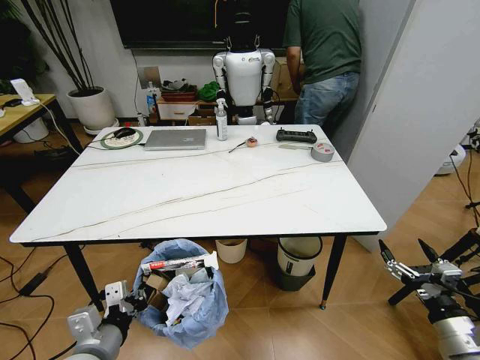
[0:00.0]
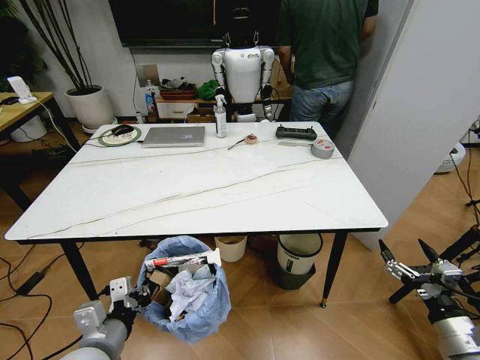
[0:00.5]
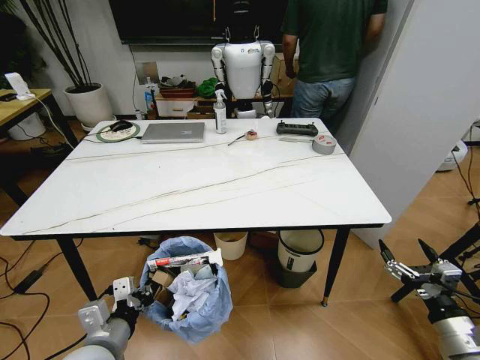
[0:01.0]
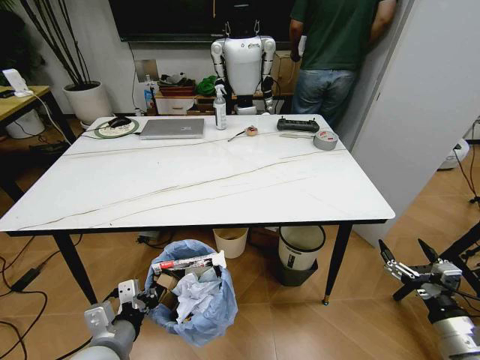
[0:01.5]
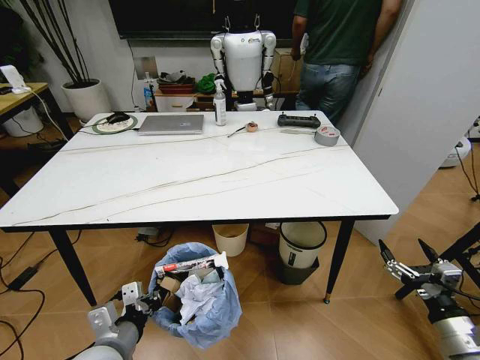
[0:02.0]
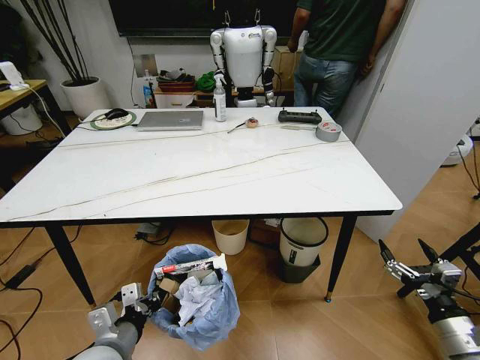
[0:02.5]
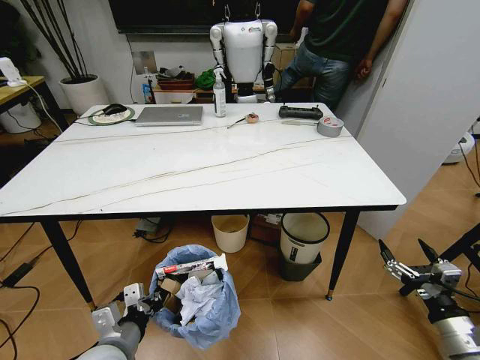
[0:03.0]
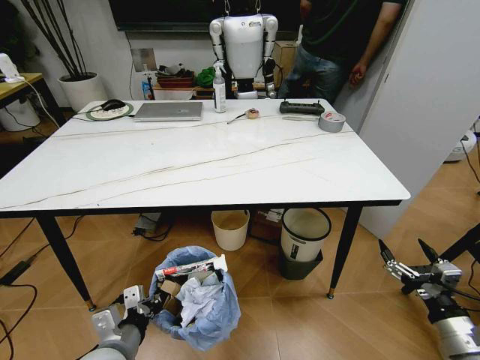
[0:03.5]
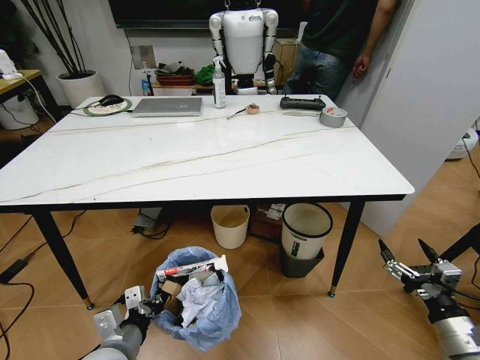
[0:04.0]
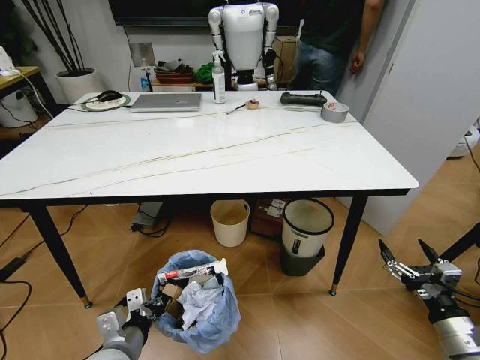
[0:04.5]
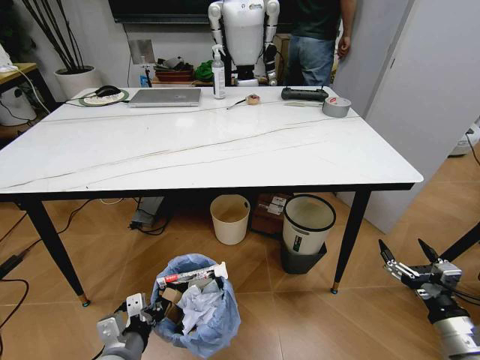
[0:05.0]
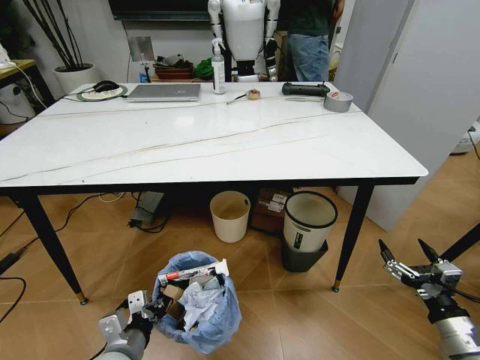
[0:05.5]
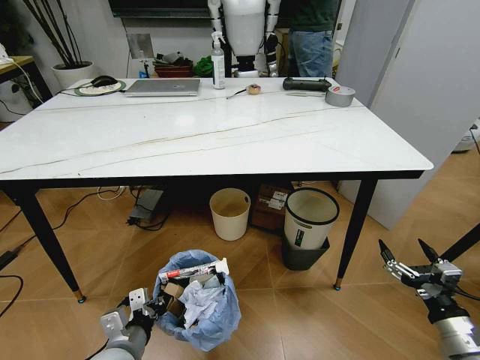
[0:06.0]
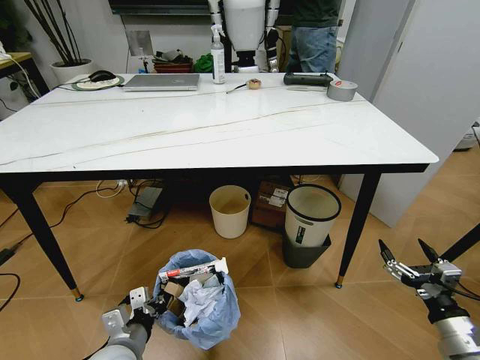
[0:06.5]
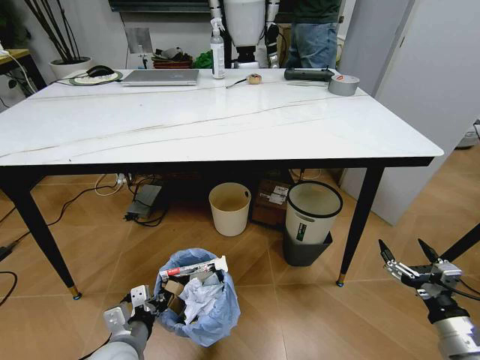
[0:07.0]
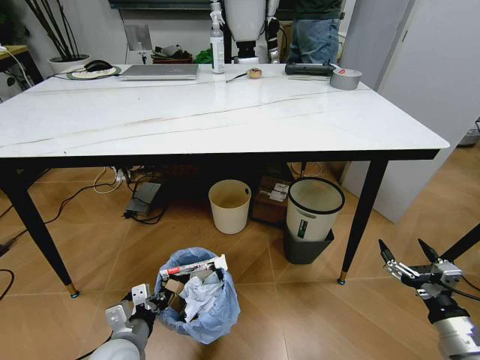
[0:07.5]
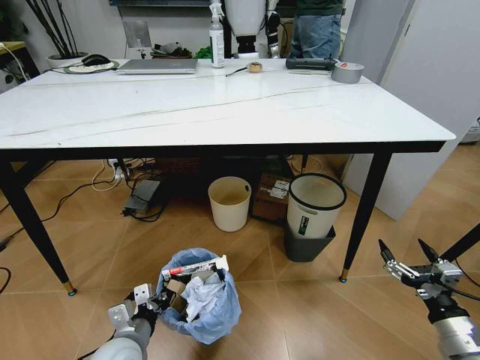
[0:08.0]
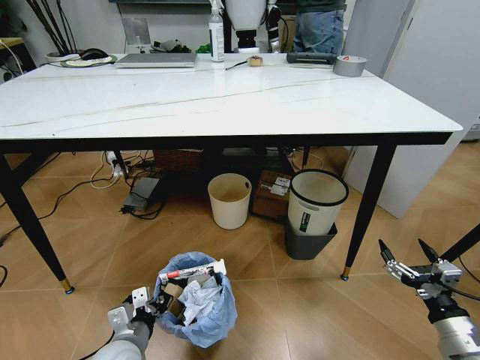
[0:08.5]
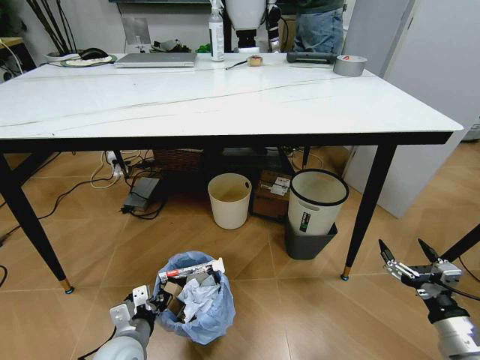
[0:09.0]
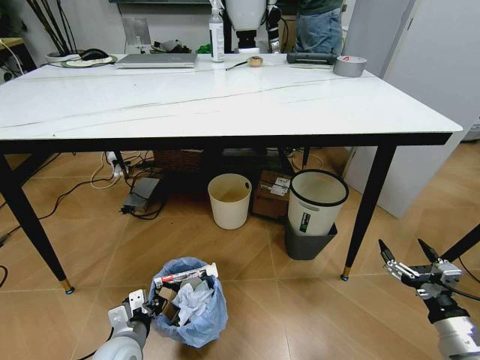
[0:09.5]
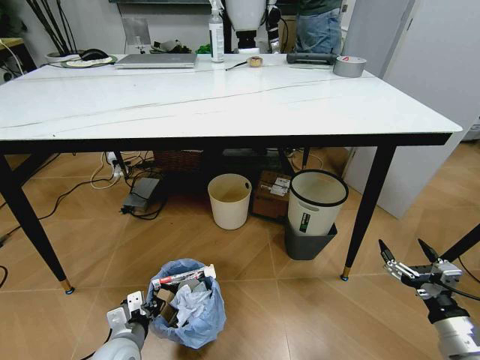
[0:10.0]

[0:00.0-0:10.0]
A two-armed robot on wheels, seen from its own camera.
Task of the whole recording: Pick up the trash bin and place the trash from the table into it.
0:08.0 to 0:10.0: There are only small adjustments of the grippers.

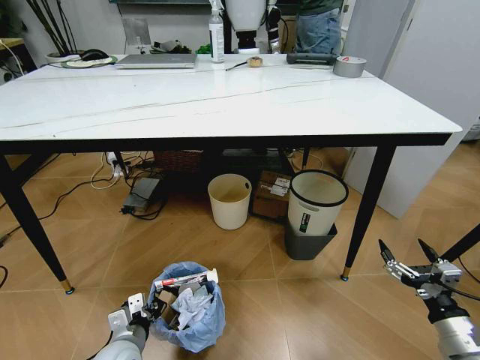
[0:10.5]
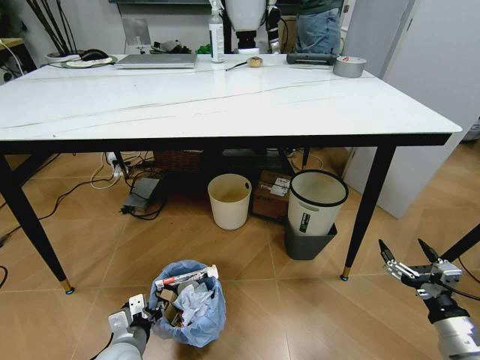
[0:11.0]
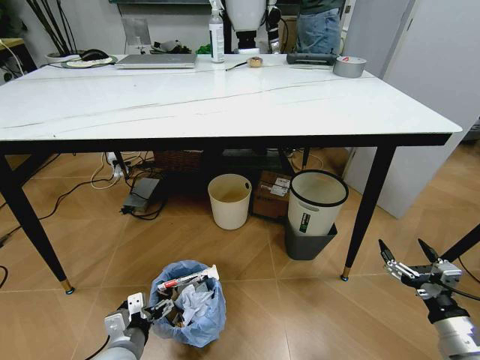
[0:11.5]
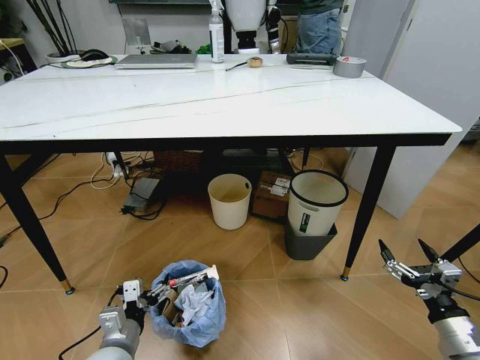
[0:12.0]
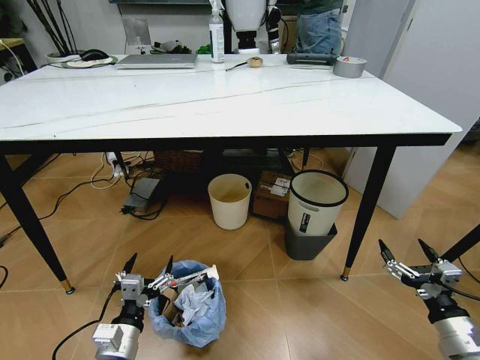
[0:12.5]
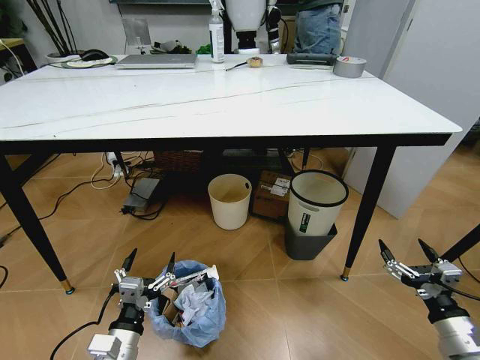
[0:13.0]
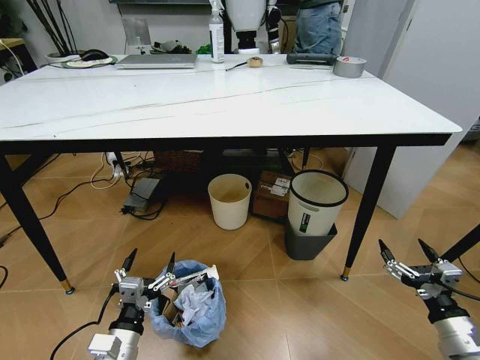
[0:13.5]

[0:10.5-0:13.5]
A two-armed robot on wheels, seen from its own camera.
Task of the whole recording: Pick up the trash bin and place the trash from the table into it.
0:10.5 to 0:12.0: The left gripper shifts approximately 5 cm upward, and opens its fingers.
